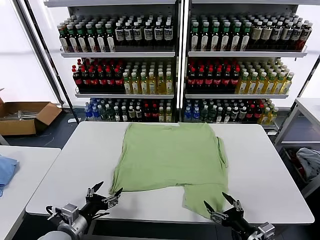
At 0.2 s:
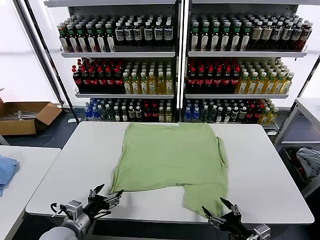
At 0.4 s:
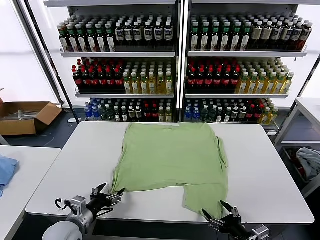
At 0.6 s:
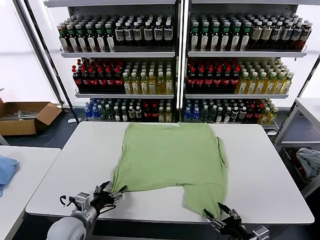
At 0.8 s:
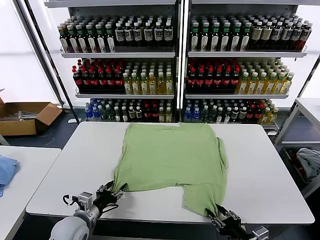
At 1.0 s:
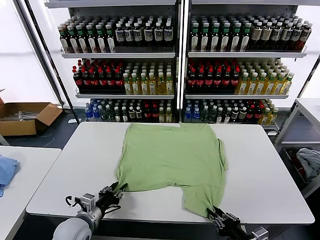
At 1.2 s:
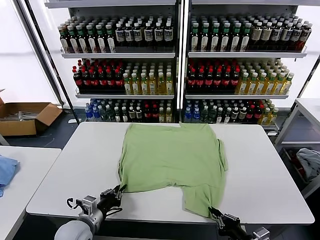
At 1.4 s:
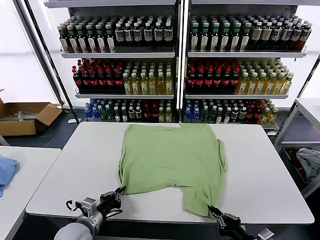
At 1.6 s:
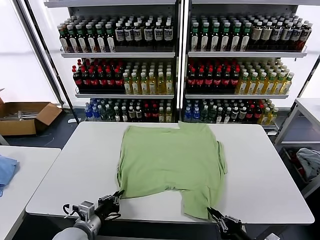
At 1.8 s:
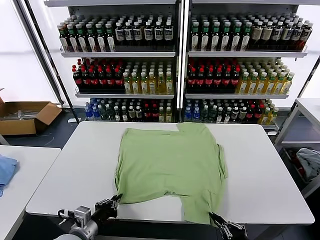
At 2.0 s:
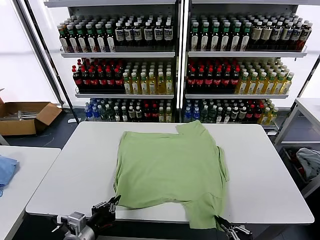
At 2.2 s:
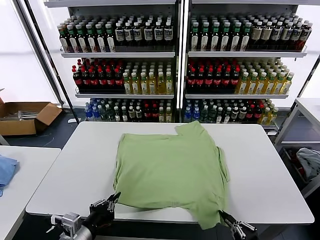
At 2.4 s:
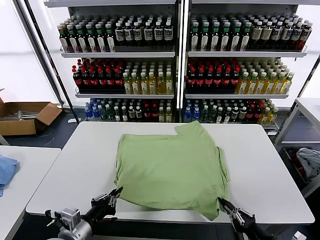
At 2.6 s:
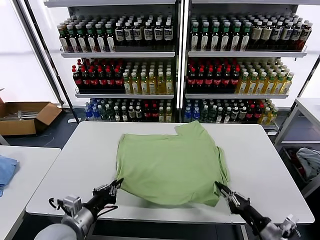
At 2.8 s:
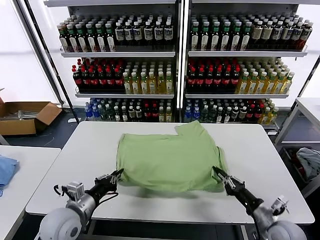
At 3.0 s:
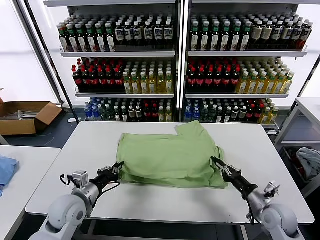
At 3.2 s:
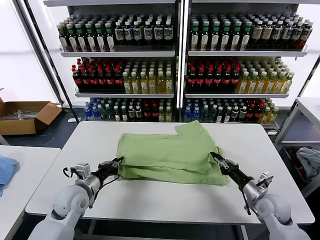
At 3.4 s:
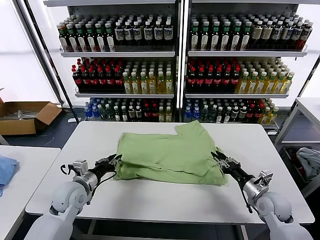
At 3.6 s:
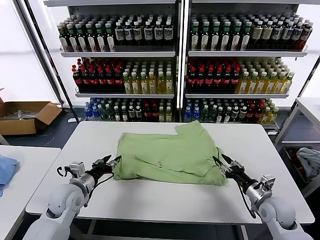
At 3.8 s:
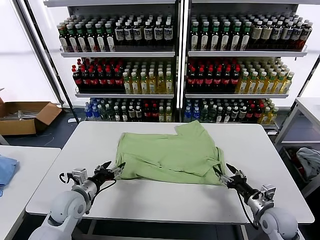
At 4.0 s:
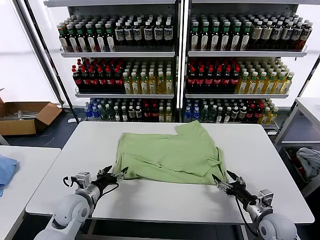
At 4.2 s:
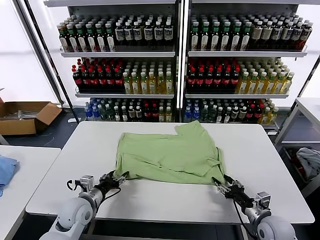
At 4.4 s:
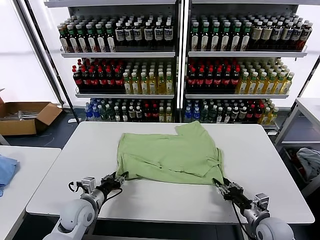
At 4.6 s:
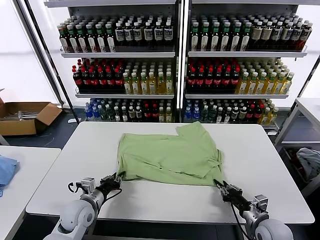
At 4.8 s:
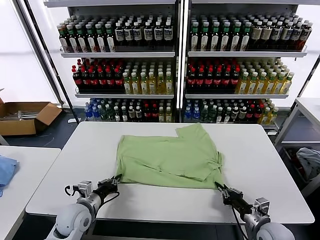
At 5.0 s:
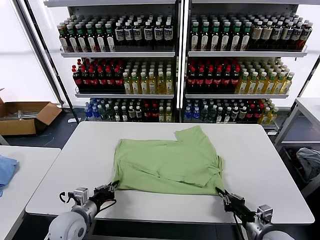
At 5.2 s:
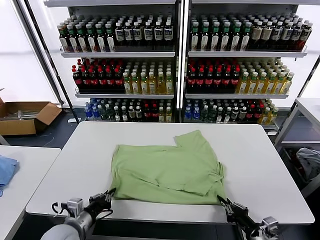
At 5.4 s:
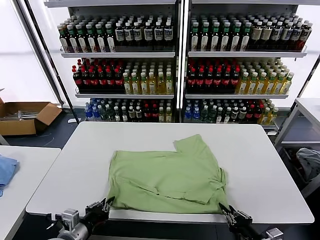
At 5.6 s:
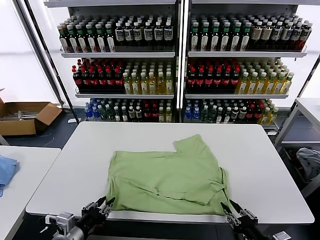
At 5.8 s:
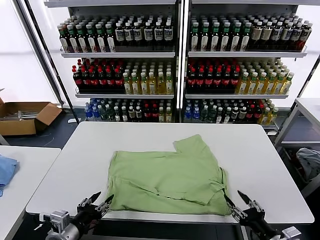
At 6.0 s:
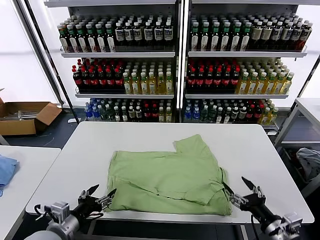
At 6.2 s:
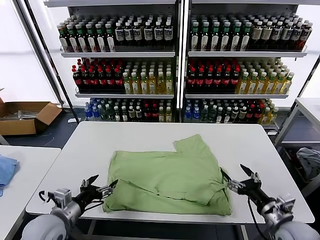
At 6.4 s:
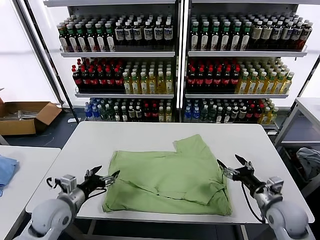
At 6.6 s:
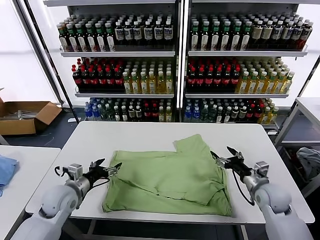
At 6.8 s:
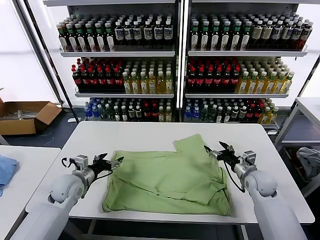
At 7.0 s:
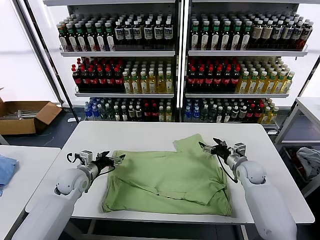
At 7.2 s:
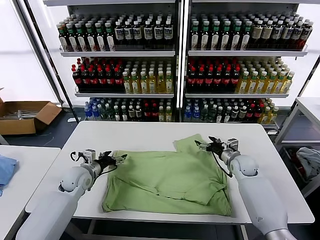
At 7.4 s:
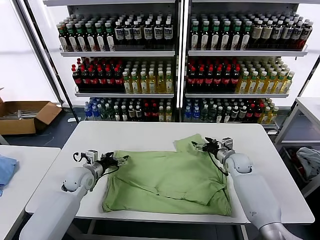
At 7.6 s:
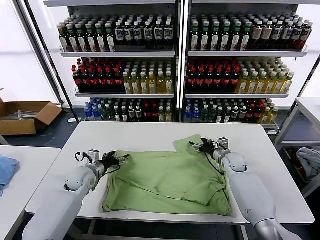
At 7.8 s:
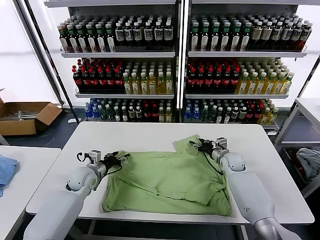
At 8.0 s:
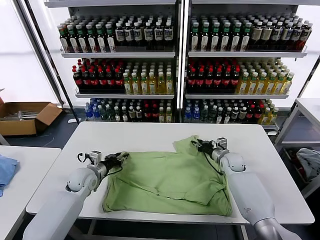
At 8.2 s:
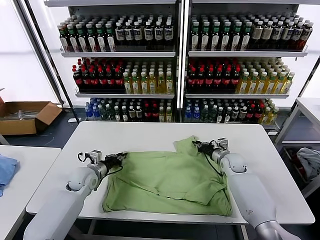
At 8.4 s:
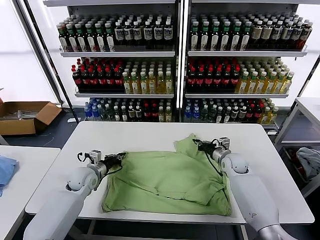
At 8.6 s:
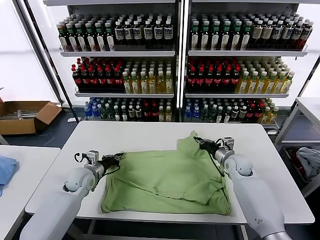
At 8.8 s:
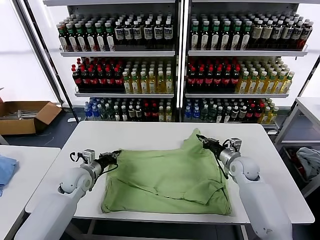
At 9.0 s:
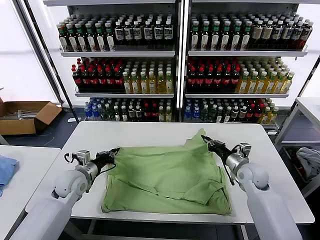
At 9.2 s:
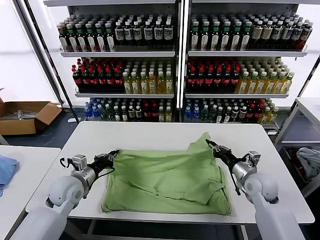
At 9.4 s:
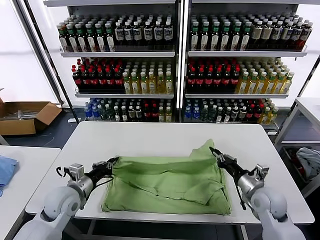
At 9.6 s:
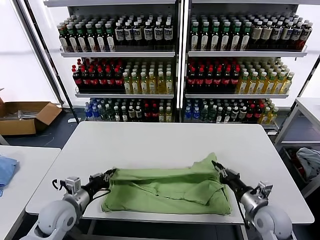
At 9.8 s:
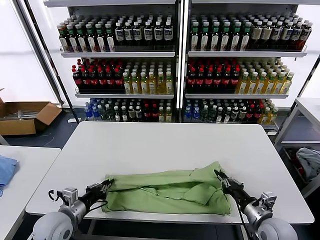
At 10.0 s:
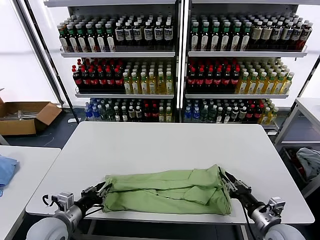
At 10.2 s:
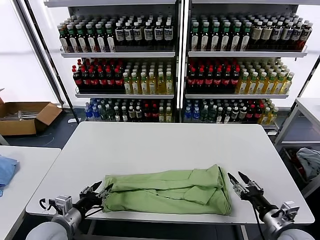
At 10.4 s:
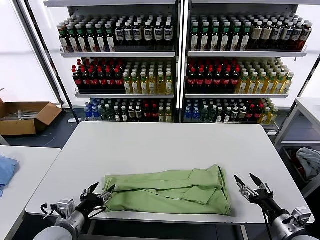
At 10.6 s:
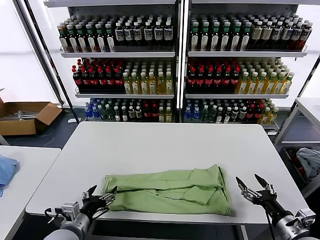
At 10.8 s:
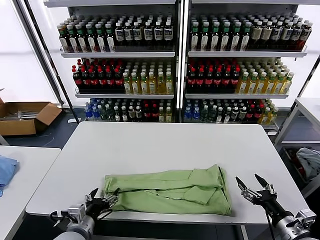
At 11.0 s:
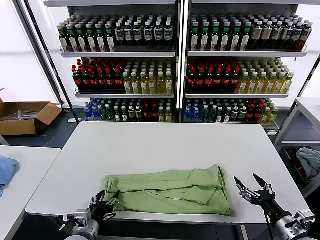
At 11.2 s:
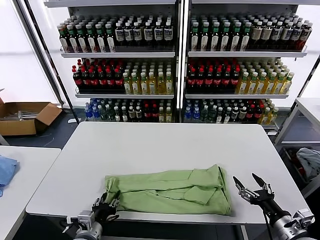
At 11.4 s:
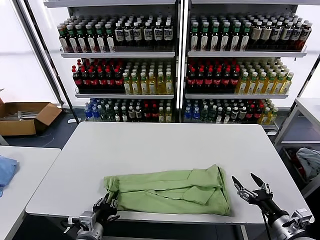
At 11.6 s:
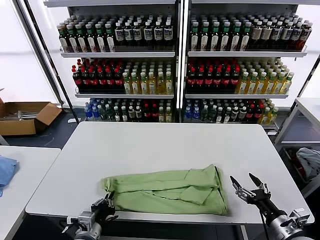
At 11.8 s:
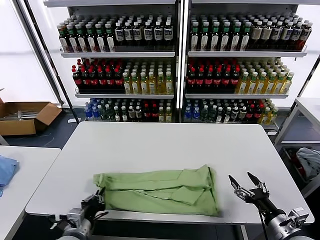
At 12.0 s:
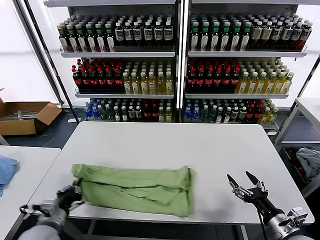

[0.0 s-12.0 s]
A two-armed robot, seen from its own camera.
Task of the whole recording: fold and organize the clothes.
Step, 0.0 to 1.2 s: use both grippers simultaneously to clamp the lower edge of the clothing fabric.
Step, 1.4 to 3.4 s: use both grippers to drag the lower edge of the fabric forward and fold it over the upper edge.
Step, 3.6 to 5.6 s: Drag the clothes downward with both gripper.
Step, 5.8 to 8.2 s: use both grippers simultaneously to clamp the upper edge of the clothing fabric.
Step, 8.4 to 10.0 s: use both grippers to drag the upper edge of the fabric backward and fold it over the lower edge.
Step, 10.2 to 11.4 s: use the left gripper to clamp the left edge of the fabric.
1.6 to 3.0 s: The left gripper shifts roughly 10 cm forward and upward, while the right gripper travels forward by roughly 20 cm.
3.0 to 4.4 s: The right gripper moves backward, roughly 5 cm, and opens, then closes again. Meanwhile the left gripper is displaced downward by about 5 cm, and opens.
4.4 to 6.0 s: The left gripper shifts about 15 cm backward and upward, and opens up. Meanwhile the right gripper heads upward and backward, covering about 10 cm, and opens.
6.0 to 7.6 s: Both grippers move forward, roughly 30 cm.
7.6 to 9.0 s: The right gripper shifts some 15 cm backward and upward, and closes. The left gripper ends up some 5 cm from where it was, and closes its fingers.
9.0 to 10.4 s: The grippers both shift backward by approximately 20 cm. The right gripper opens its fingers, while the left gripper opens its fingers.
10.4 to 12.0 s: The left gripper travels to the right and back again, roughly 5 cm each way, and closes up.

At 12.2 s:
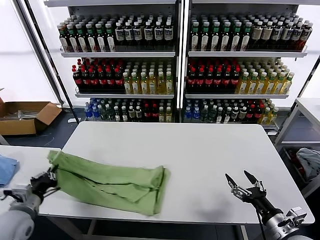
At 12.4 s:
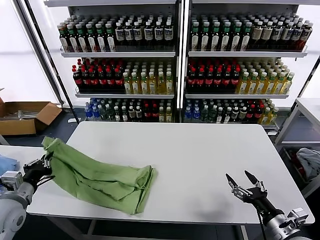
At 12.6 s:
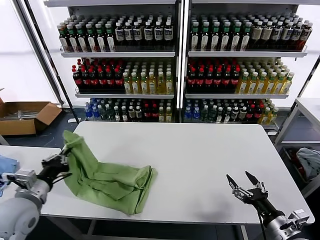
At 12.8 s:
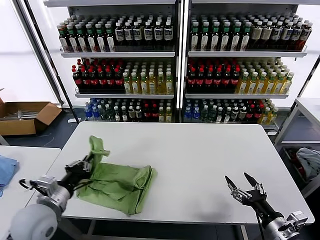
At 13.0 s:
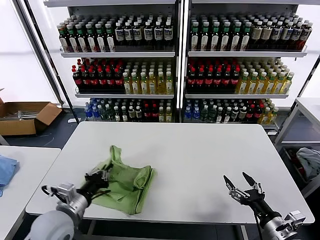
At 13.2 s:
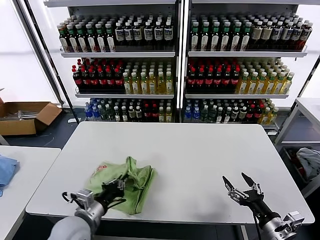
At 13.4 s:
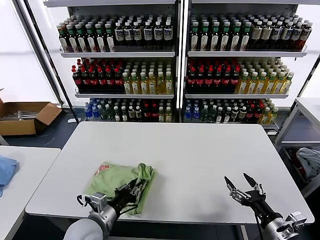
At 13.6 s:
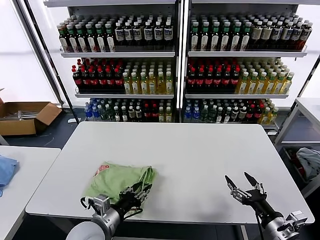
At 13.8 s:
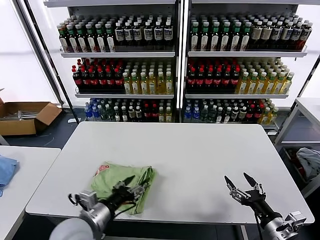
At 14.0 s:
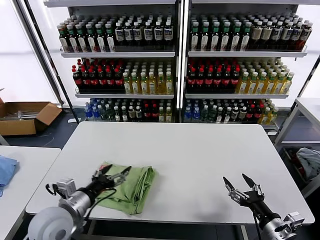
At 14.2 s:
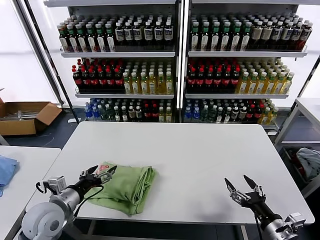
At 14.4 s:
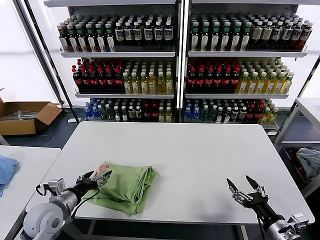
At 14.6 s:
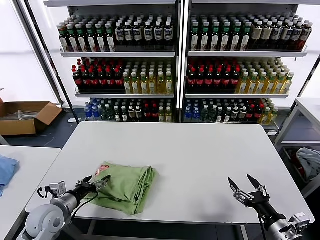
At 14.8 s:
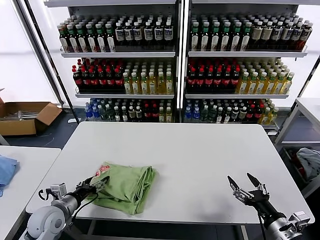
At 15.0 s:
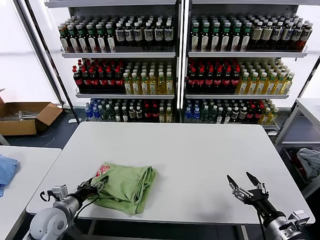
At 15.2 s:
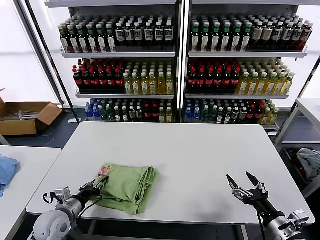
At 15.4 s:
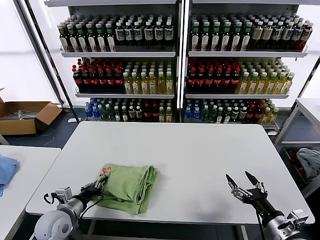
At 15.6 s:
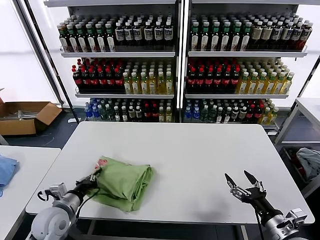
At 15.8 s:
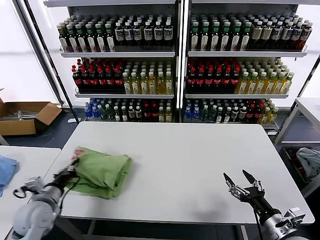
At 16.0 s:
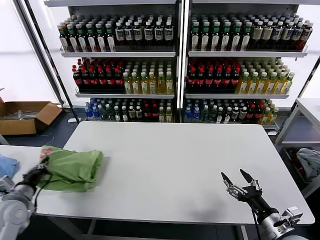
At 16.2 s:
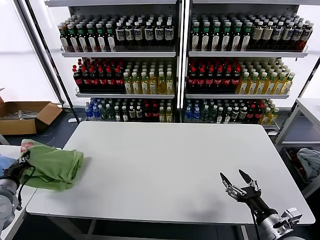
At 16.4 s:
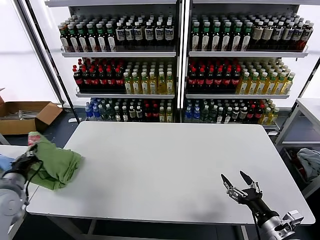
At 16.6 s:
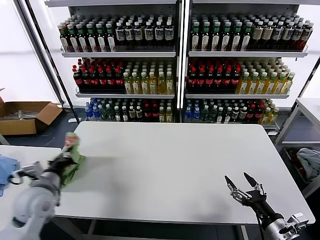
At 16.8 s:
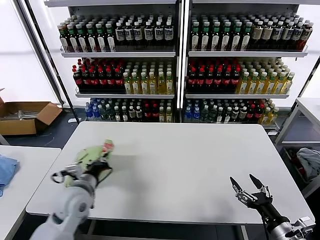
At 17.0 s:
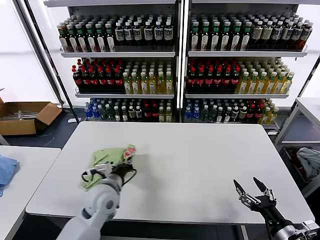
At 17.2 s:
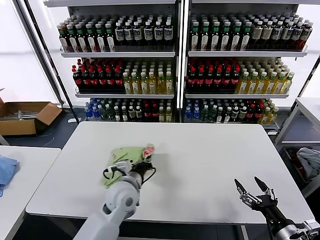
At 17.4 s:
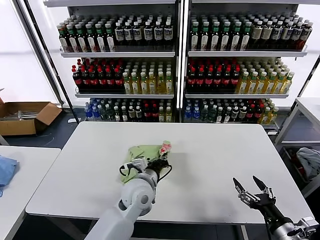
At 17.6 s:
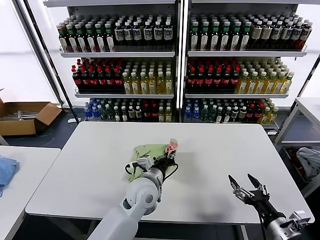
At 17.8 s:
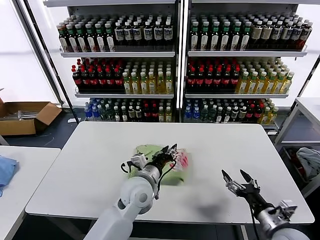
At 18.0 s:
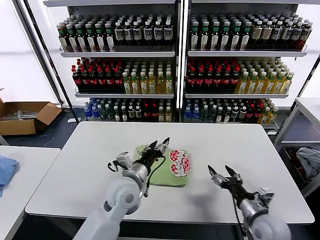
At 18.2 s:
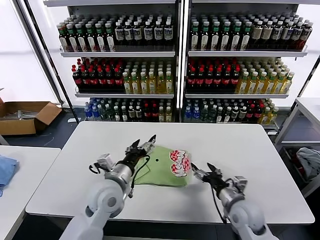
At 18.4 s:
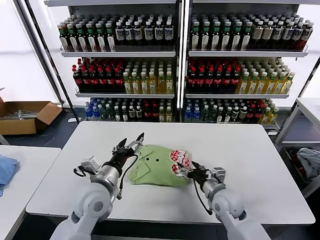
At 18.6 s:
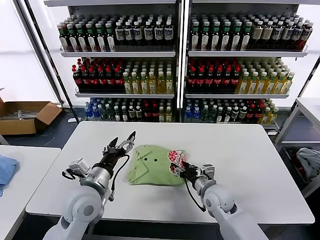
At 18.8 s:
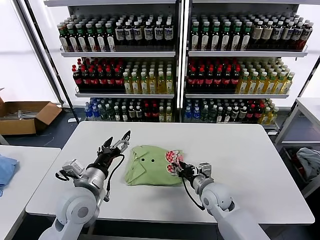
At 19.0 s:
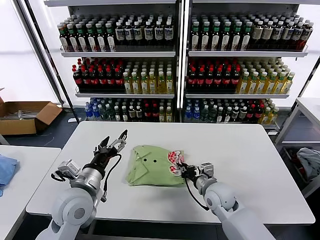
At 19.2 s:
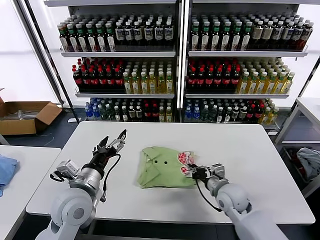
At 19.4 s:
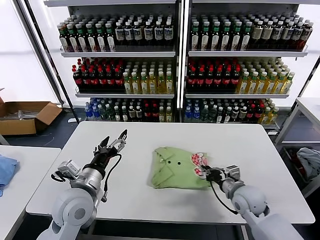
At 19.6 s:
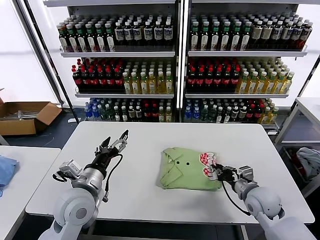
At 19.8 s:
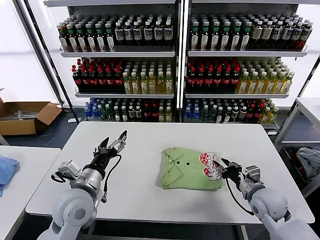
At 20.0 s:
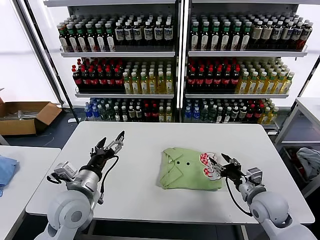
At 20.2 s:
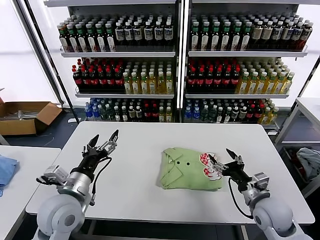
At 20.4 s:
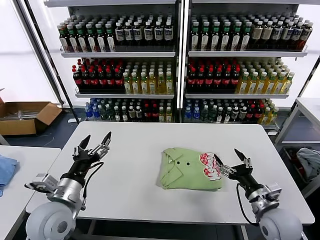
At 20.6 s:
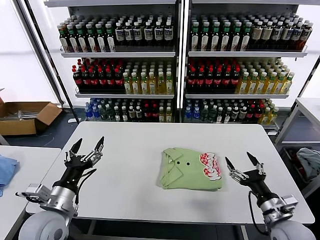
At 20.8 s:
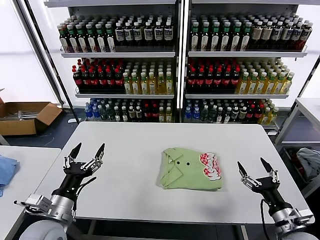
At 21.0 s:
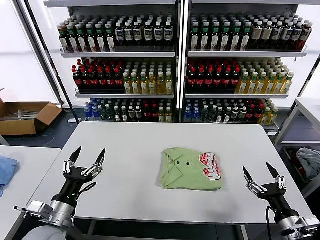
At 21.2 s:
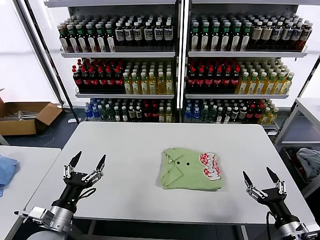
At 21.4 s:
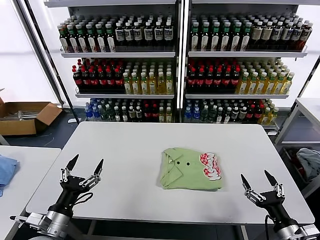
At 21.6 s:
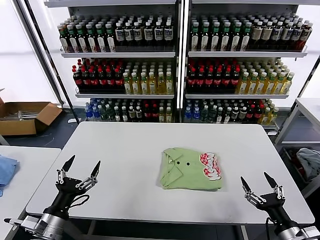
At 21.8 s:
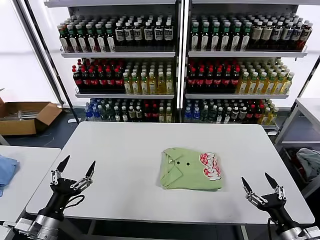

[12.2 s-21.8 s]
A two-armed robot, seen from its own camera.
Task of the whole recording: fold and organize the clothes.
Step, 12.2 to 13.6 s: use the left gripper to drag the left edge of the fabric to the left and folds it over the right edge.
Step, 13.8 to 17.8 s: Flip the folded clothes over with left gripper.
Step, 18.0 to 20.0 s: Drag the clothes to the center of the table.
12.2 to 13.8 s: The left gripper heads to the right, covering about 20 cm, and opens up.
13.8 to 15.4 s: The left gripper heads to the left, downward and forward, covering roughly 15 cm, and closes its fingers.
15.4 to 17.0 s: The left gripper shifts about 15 cm to the right, upward and forward.
17.0 to 18.6 s: The right gripper heads forward and to the left, covering some 25 cm. The left gripper travels upward by about 5 cm, reaches some 15 cm to the right, then returns, and opens up.
18.6 to 20.2 s: The right gripper moves to the right and backward, some 15 cm, and closes, then reopens; the left gripper moves roughly 5 cm.
20.2 to 21.8 s: The left gripper travels backward, to the left and downward by about 15 cm; the right gripper moves backward, approximately 15 cm.
